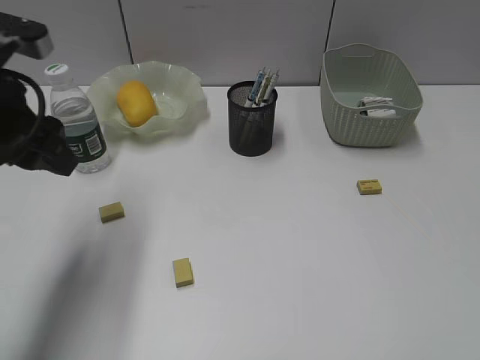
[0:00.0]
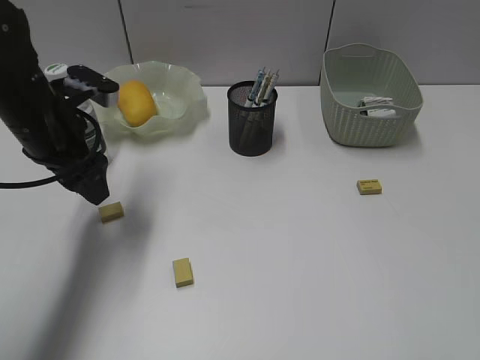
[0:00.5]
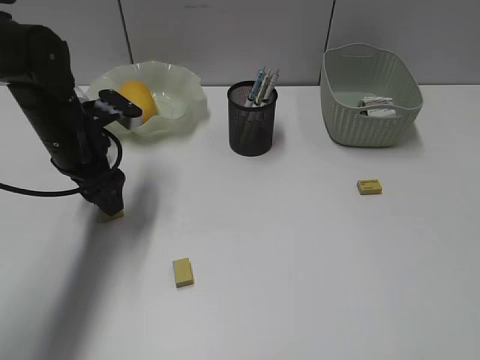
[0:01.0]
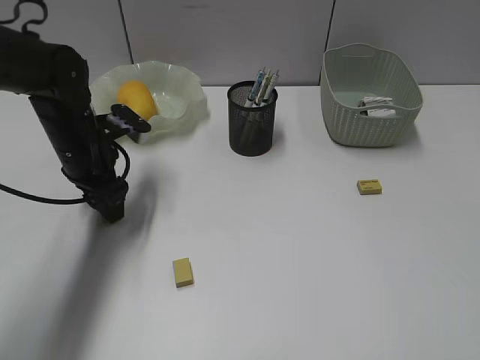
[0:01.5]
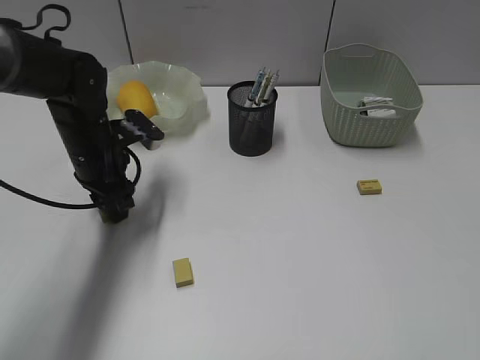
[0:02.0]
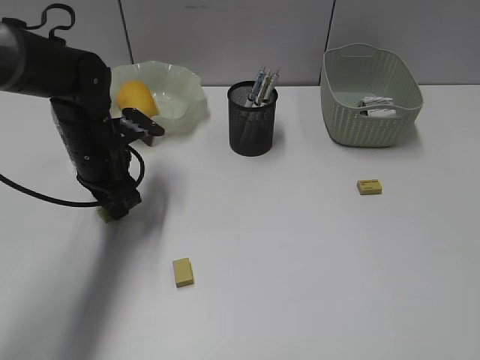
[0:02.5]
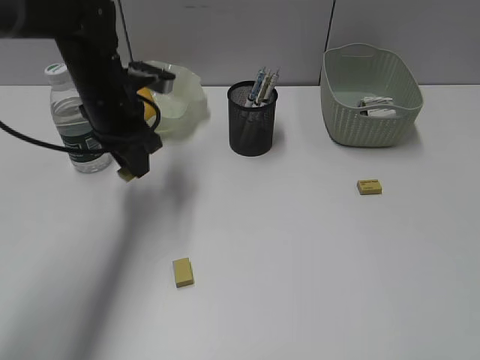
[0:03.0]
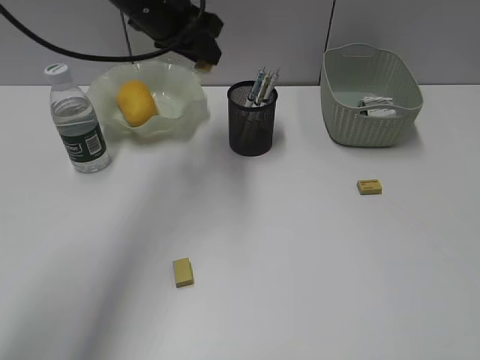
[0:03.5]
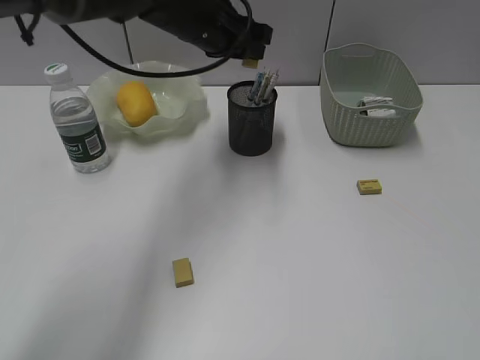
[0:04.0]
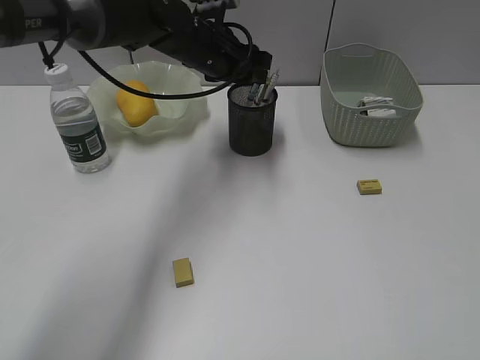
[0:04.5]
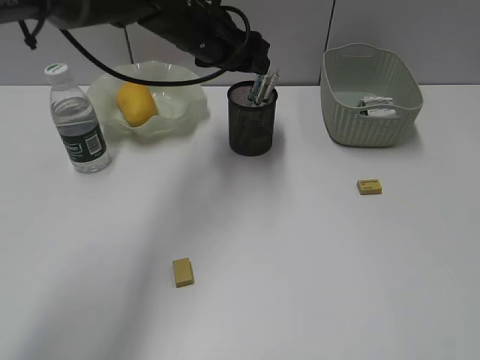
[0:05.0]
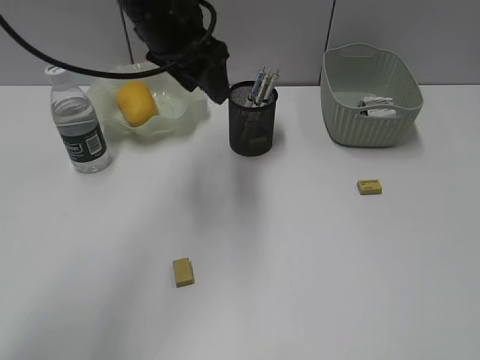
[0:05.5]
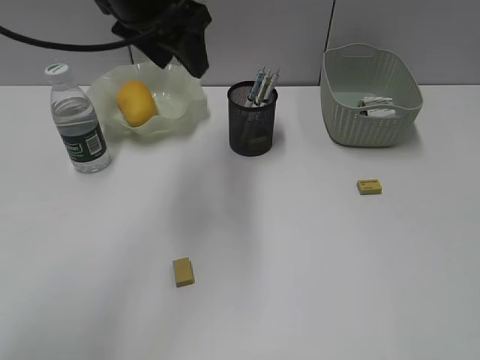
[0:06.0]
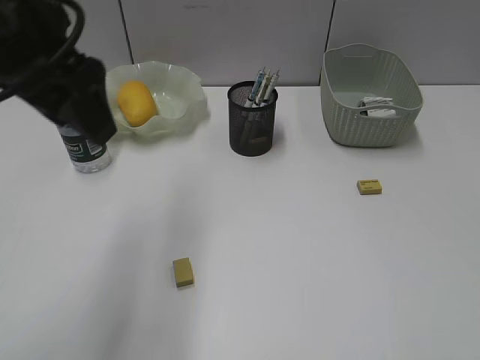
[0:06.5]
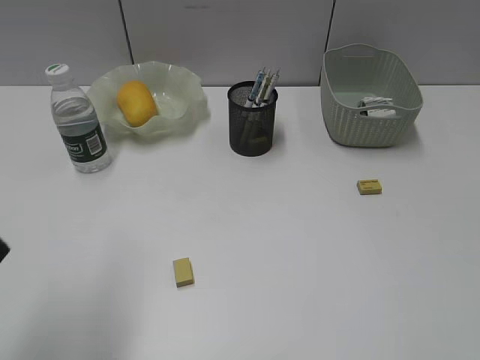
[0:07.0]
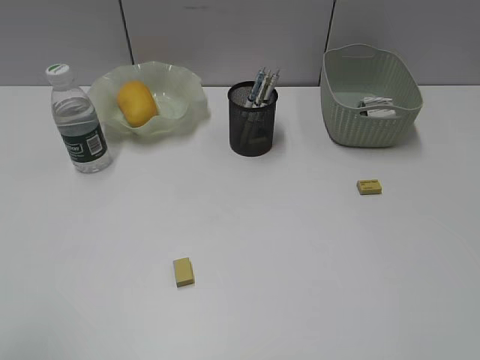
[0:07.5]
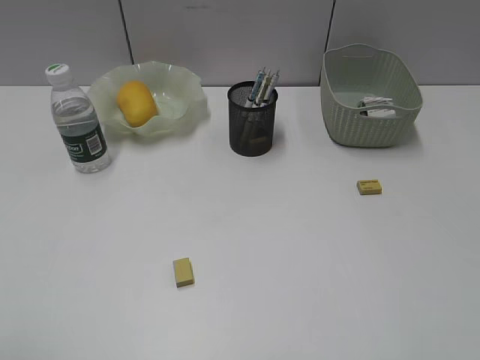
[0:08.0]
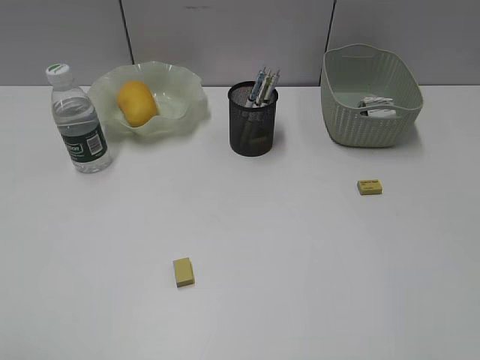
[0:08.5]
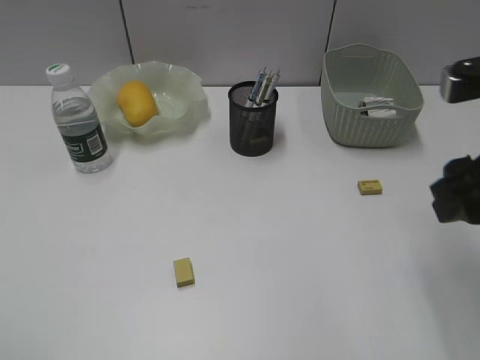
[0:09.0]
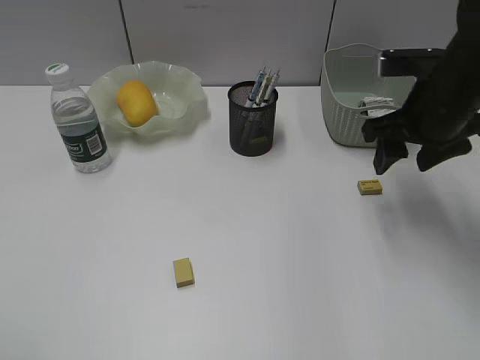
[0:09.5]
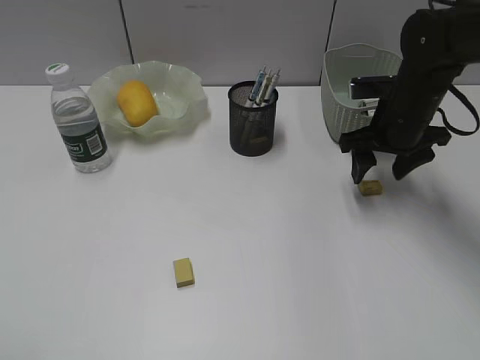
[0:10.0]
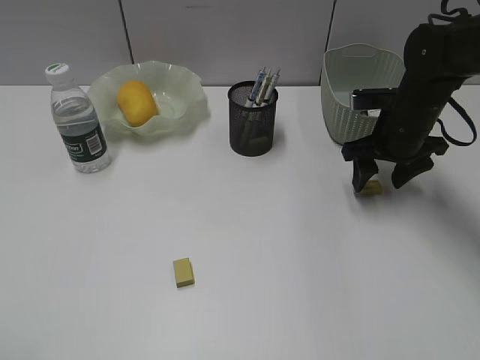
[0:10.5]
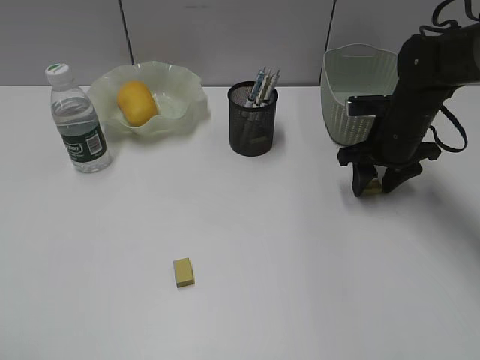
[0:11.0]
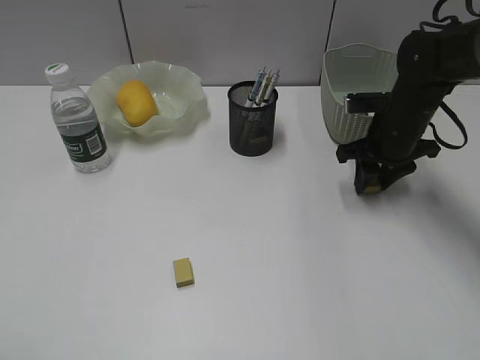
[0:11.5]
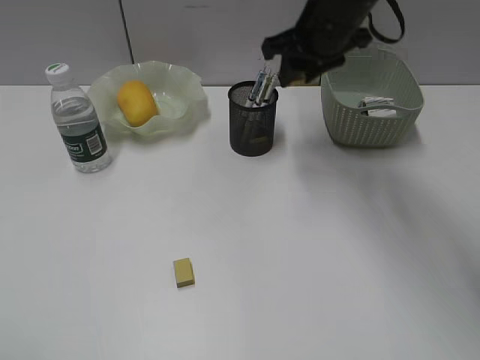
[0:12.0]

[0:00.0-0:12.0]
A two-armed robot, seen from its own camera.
Step, 0:00.0 to 0:02.5: Grasp the eraser with left gripper.
Step, 0:03.0 to 0:04.5: Place the eraser in pen holder with left gripper.
Step, 0:05.0 to 0:11.0: Grasp the eraser with right gripper.
0:00.0 to 0:02.0: The left gripper moves downward and forward, approximately 15 cm.
0:02.0 to 0:04.0: The left gripper travels to the right, upward and forward by about 20 cm.
0:04.0 to 0:06.0: The left gripper goes about 15 cm upward, backward and to the left, and opens its fingers.
0:06.0 to 0:08.0: The left gripper goes about 40 cm backward and to the left.
0:08.0 to 0:10.0: The right gripper goes about 35 cm forward.
0:10.0 to 0:12.0: The right gripper shifts some 15 cm upward and to the left, and closes its fingers.

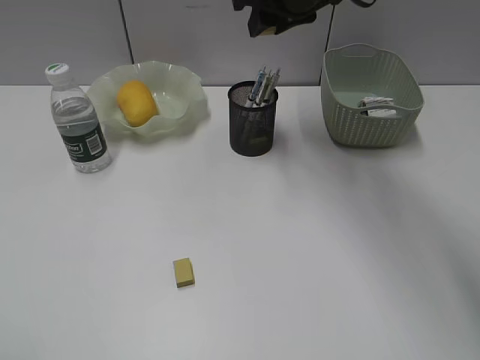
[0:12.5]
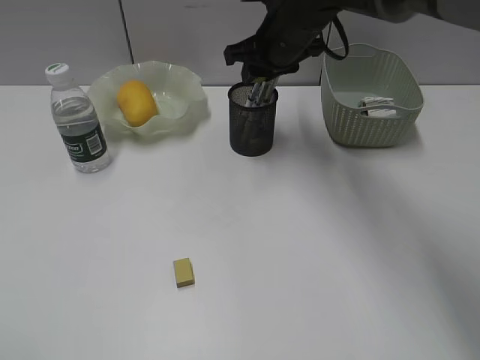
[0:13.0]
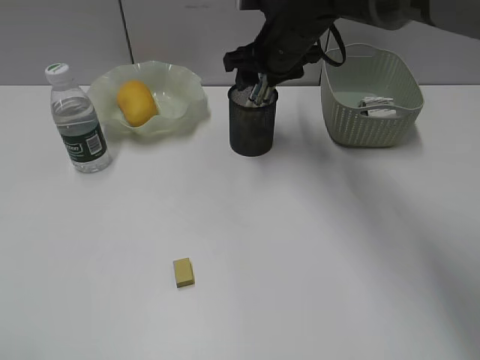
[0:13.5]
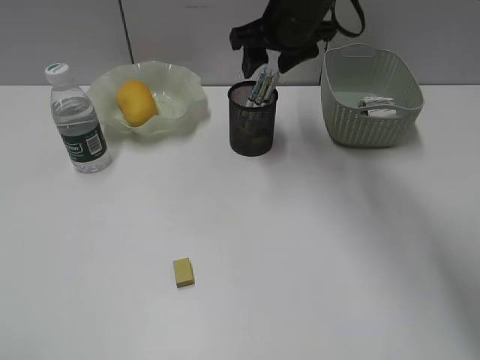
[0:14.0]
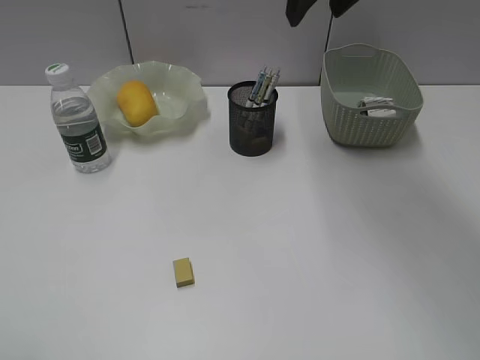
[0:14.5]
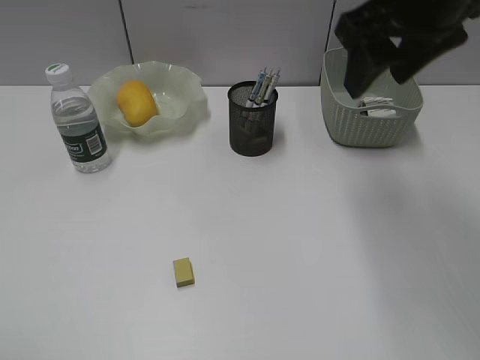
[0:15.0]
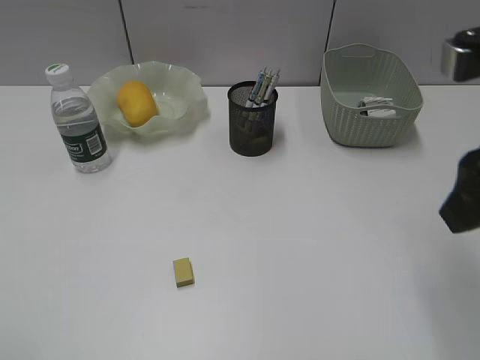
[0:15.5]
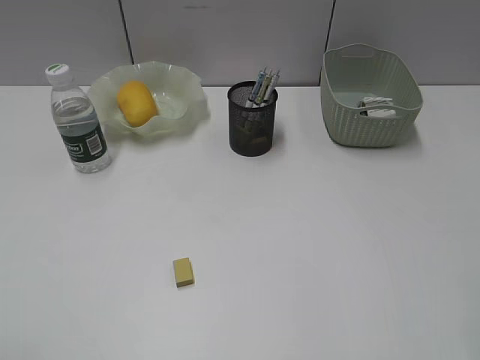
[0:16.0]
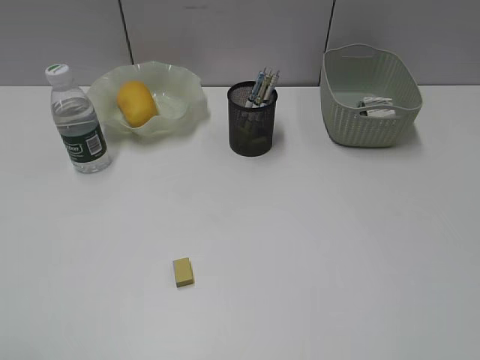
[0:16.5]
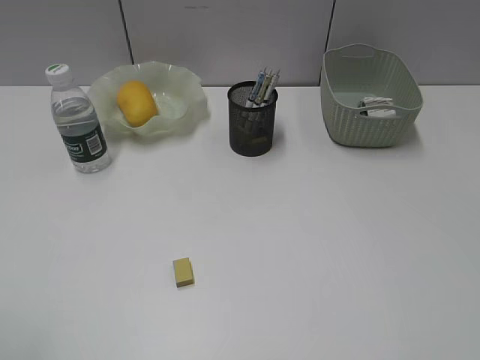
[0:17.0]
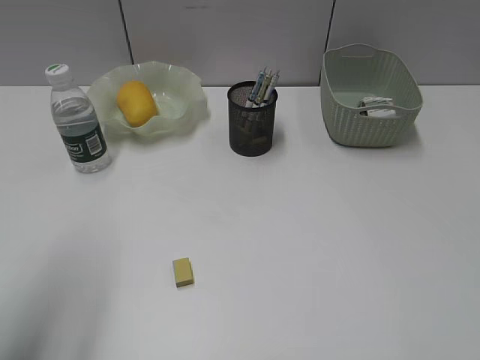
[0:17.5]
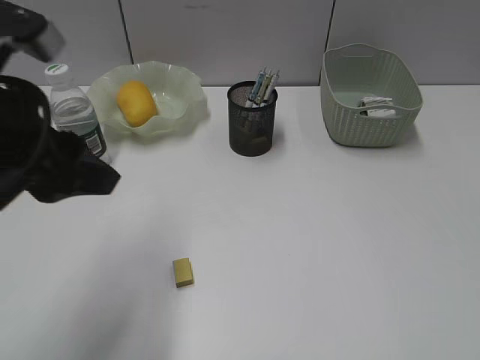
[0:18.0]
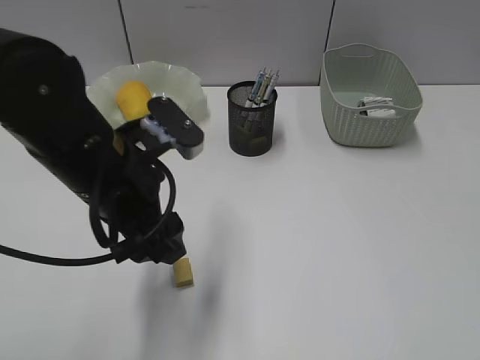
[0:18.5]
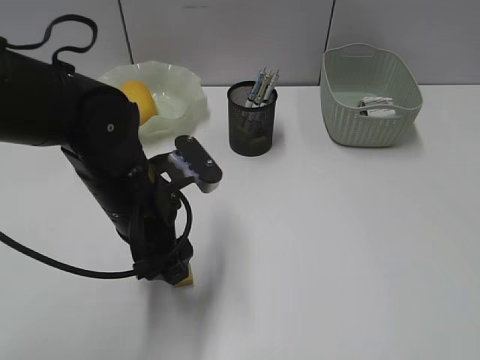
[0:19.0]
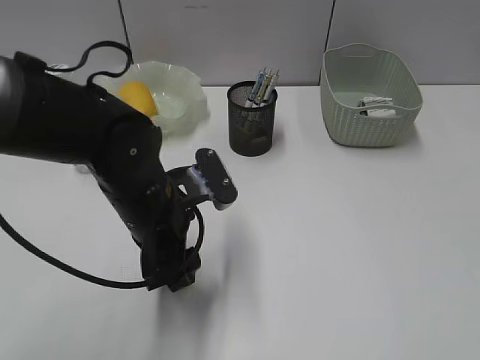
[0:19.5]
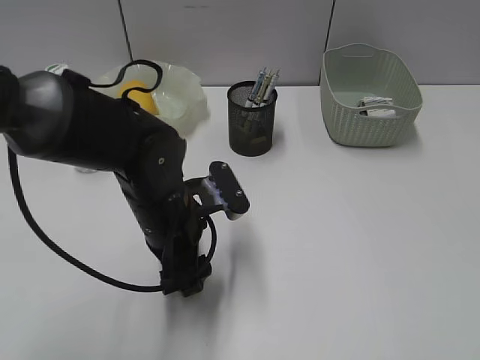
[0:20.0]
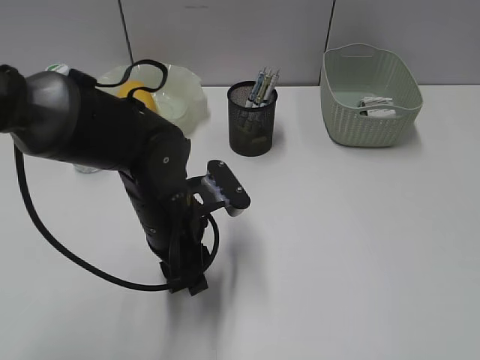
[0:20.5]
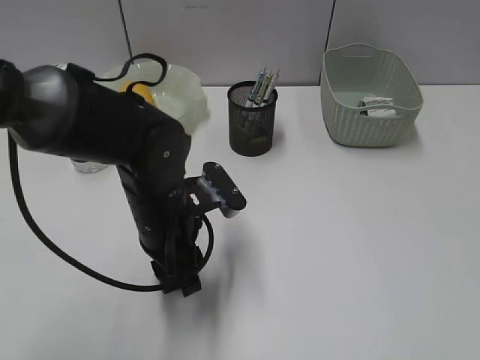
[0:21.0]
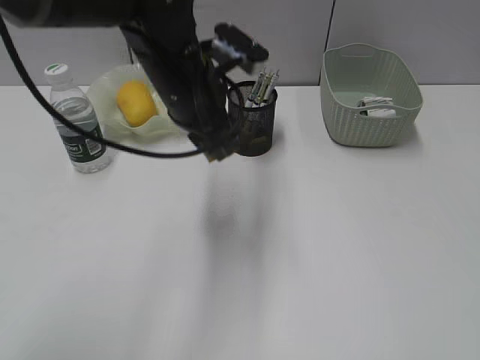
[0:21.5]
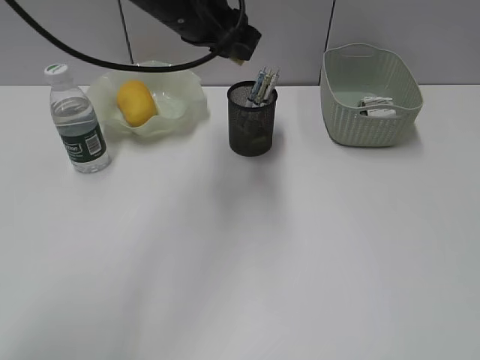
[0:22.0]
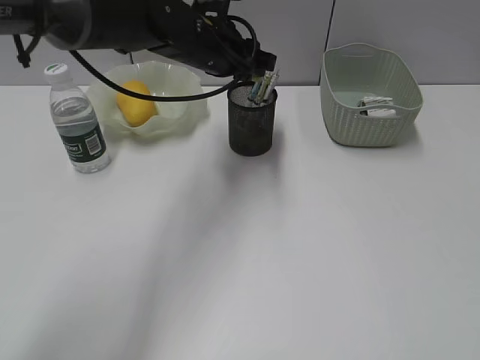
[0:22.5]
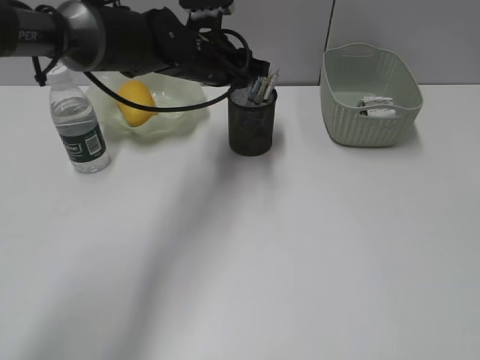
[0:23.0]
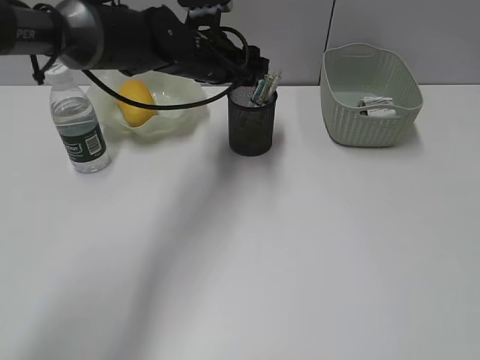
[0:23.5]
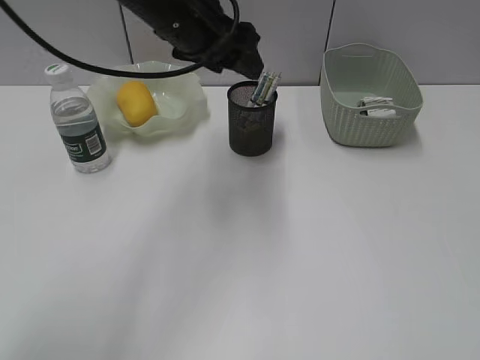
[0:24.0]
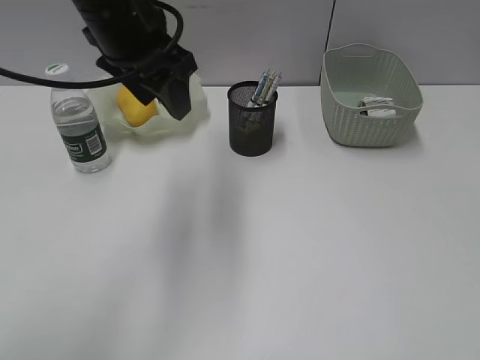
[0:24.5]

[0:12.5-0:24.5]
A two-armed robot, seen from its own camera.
Step, 0:14.0 to 0:20.5: Grasp the eraser with left gripper.
Step, 0:21.0 to 0:23.5: Place the eraser in pen holder with left gripper.
0:12.5 to 0:14.5: The right gripper travels upward and backward by some 10 cm, and opens up.
0:14.5 to 0:16.5: The right gripper heads backward and to the right, covering approximately 40 cm.
0:16.5 to 0:18.5: The left gripper goes approximately 30 cm forward and to the right.
0:18.5 to 0:20.5: The left gripper heads downward, covering approximately 10 cm, and closes up.
0:20.5 to 0:22.5: The left gripper travels forward and upward by some 20 cm.
0:22.5 to 0:24.5: The left gripper heads backward, upward and to the left, covering roughly 15 cm.

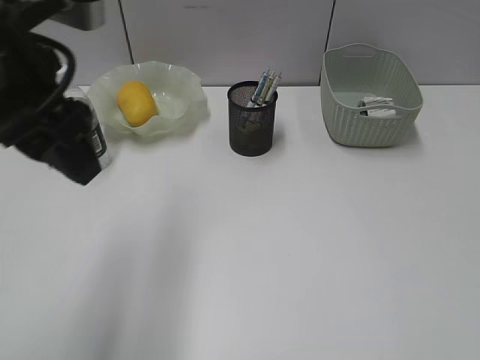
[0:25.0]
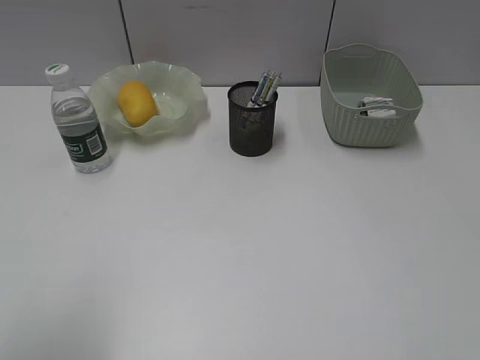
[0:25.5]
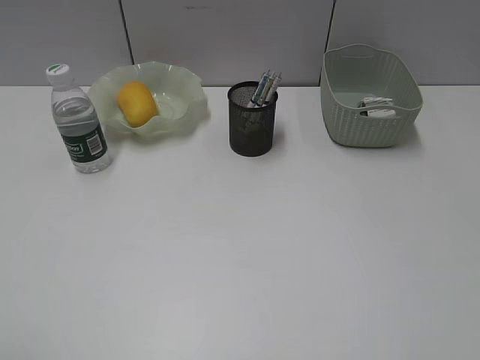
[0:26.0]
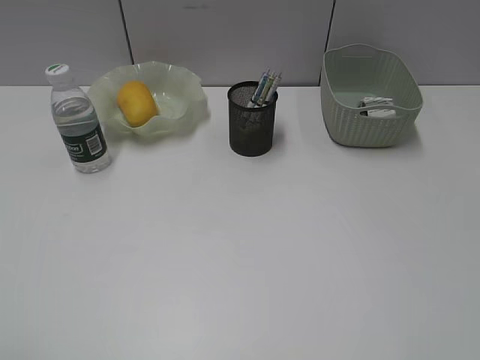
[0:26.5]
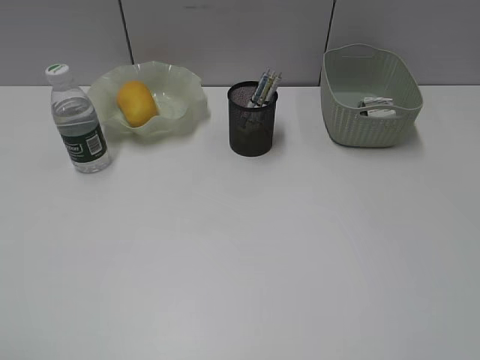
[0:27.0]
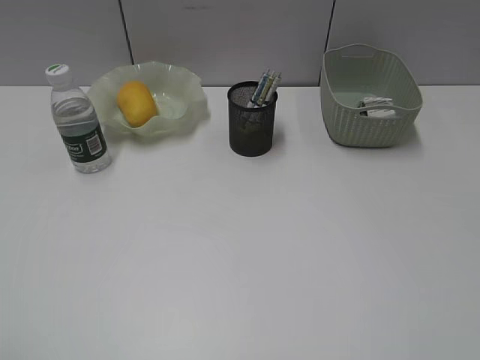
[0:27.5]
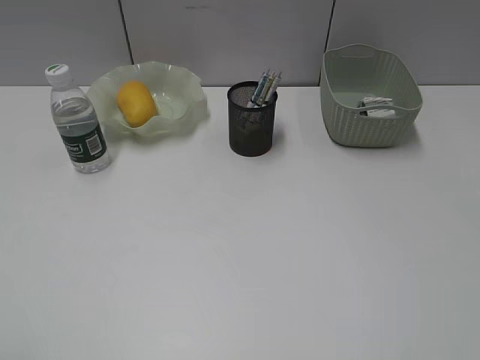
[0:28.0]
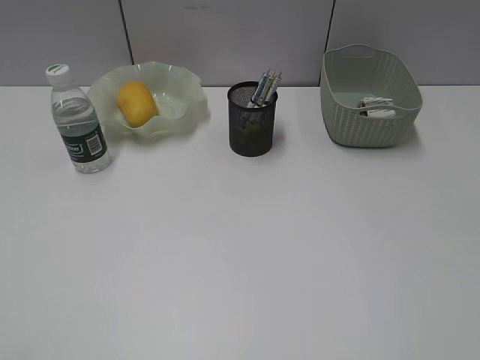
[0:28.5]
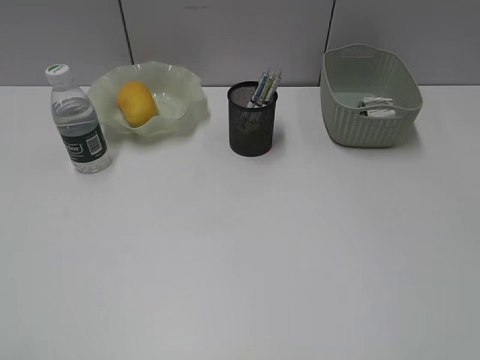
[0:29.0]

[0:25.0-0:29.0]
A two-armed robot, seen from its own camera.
0:25.0 to 0:27.0: The left gripper goes roughly 25 cm backward and to the left.
